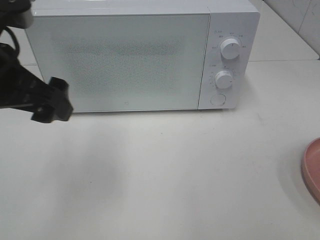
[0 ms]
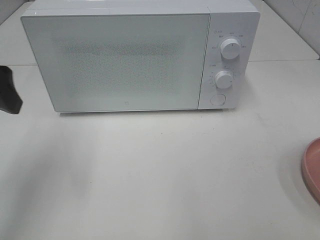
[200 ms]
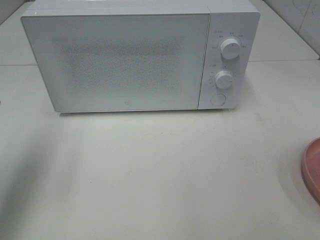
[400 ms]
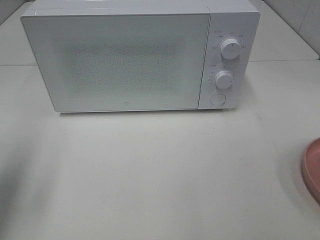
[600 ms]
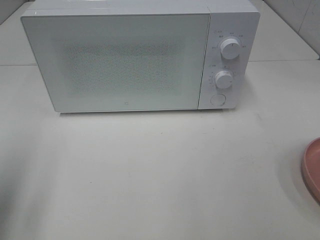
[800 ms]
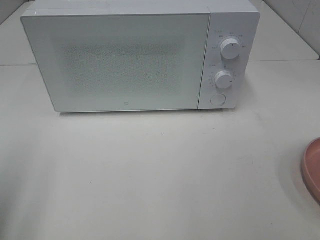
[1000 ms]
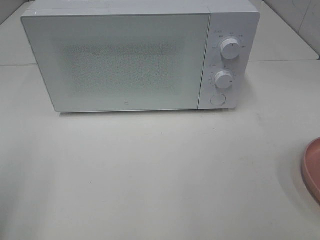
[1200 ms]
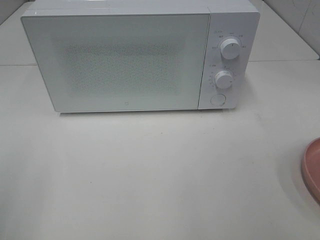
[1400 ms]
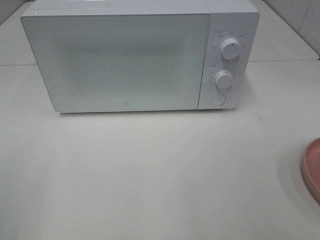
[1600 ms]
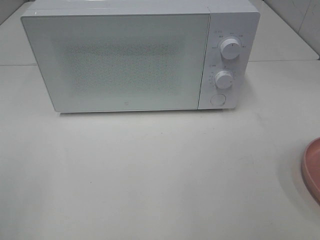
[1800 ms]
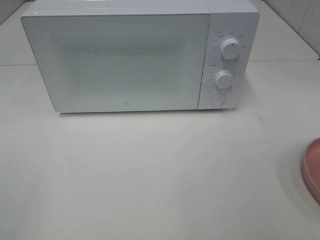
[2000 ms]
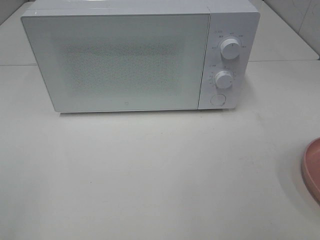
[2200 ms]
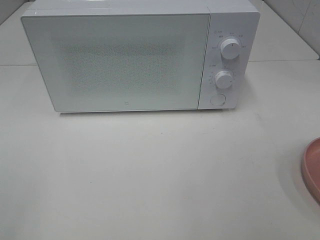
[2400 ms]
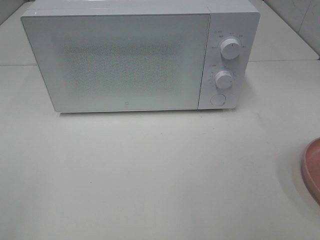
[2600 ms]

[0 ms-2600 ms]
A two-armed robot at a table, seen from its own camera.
Task of the whole recording: Heat the burger.
0 ms to 1200 ms: The left gripper shifts roughly 20 cm backward and to the left.

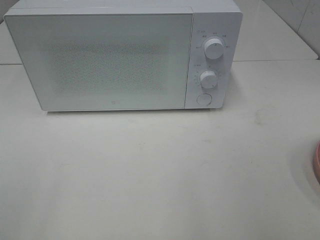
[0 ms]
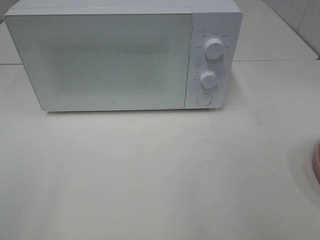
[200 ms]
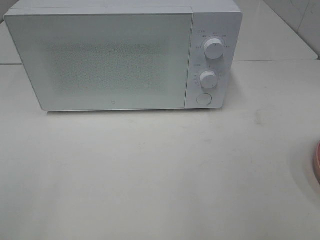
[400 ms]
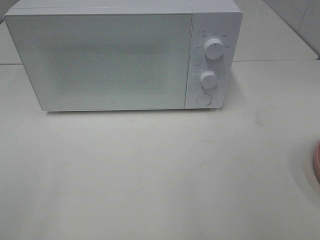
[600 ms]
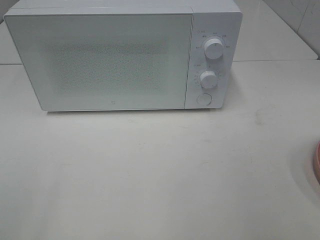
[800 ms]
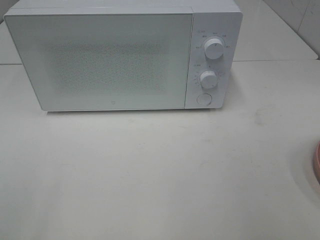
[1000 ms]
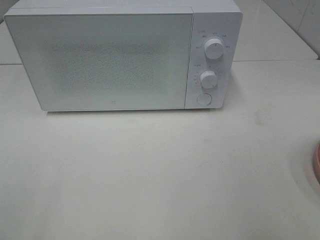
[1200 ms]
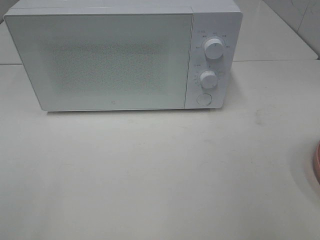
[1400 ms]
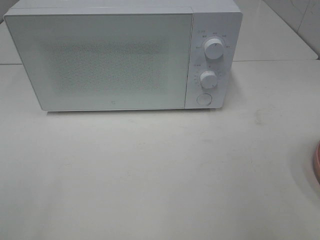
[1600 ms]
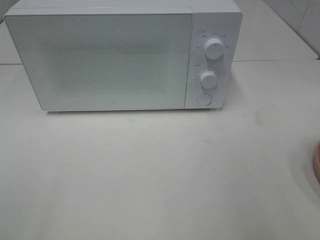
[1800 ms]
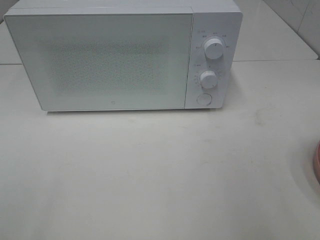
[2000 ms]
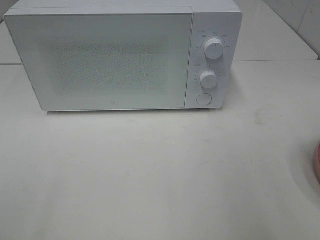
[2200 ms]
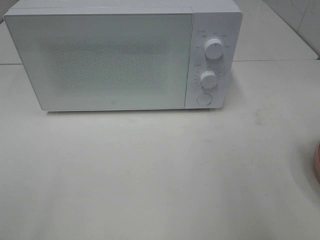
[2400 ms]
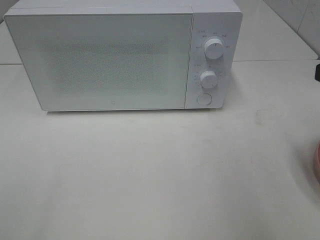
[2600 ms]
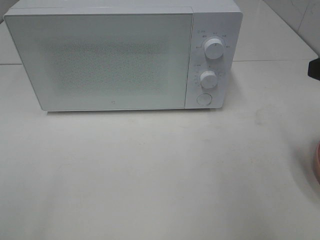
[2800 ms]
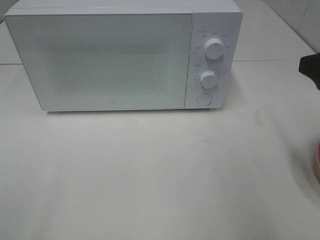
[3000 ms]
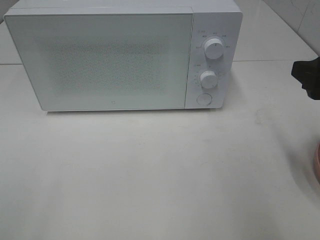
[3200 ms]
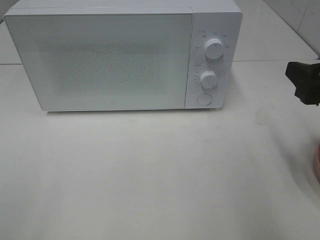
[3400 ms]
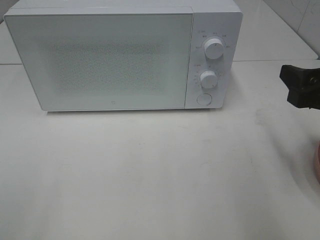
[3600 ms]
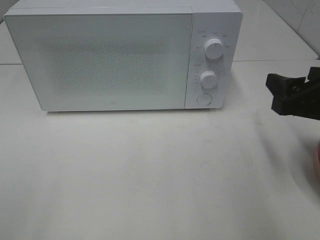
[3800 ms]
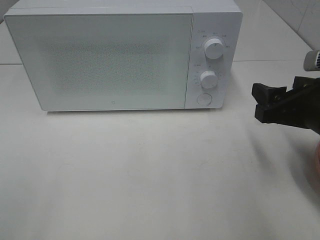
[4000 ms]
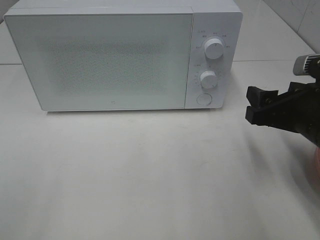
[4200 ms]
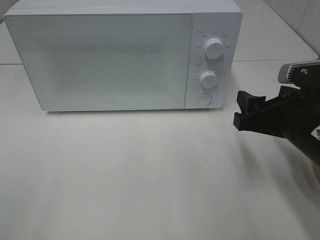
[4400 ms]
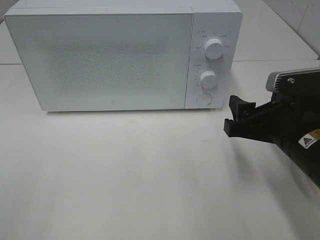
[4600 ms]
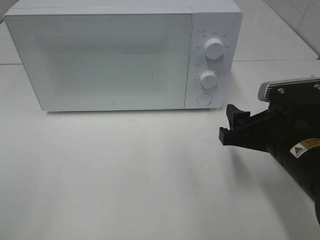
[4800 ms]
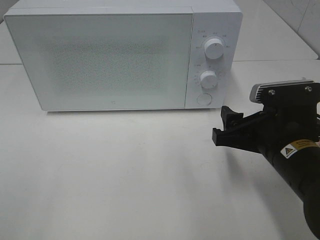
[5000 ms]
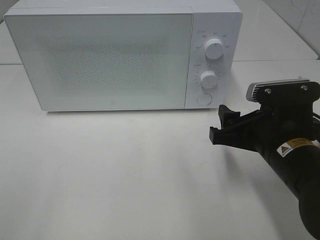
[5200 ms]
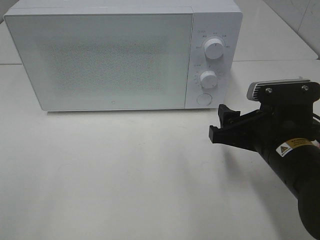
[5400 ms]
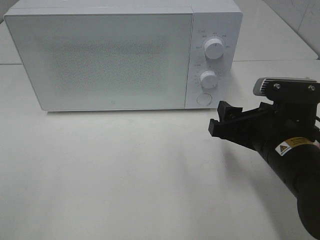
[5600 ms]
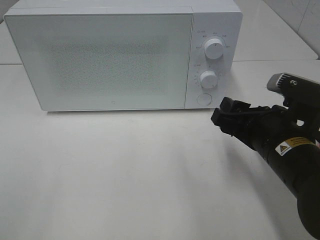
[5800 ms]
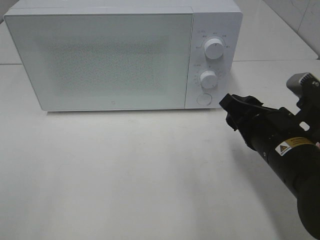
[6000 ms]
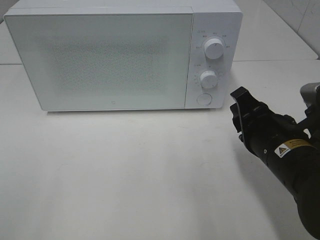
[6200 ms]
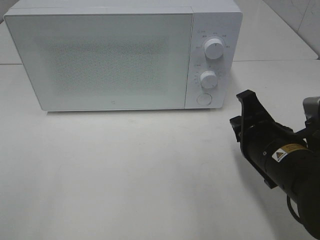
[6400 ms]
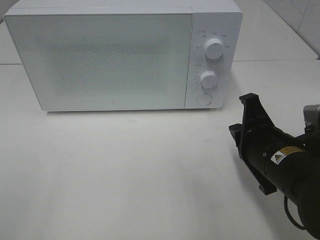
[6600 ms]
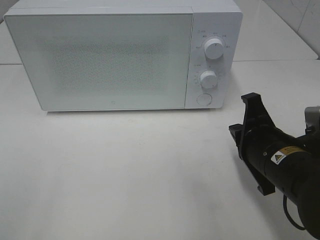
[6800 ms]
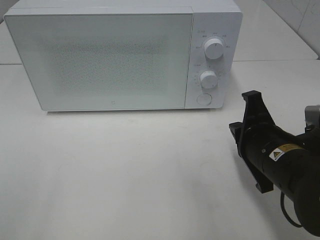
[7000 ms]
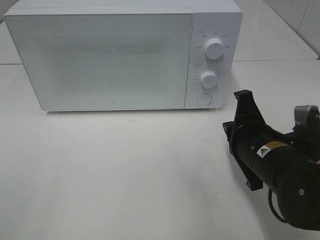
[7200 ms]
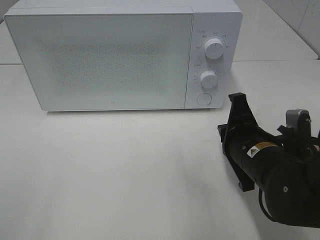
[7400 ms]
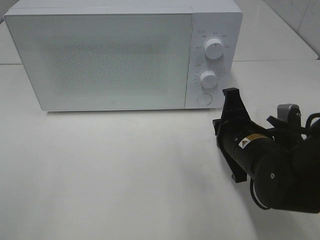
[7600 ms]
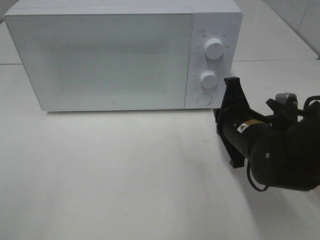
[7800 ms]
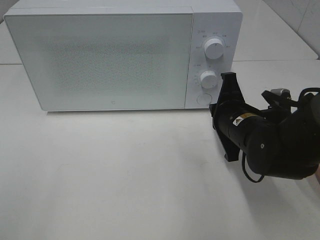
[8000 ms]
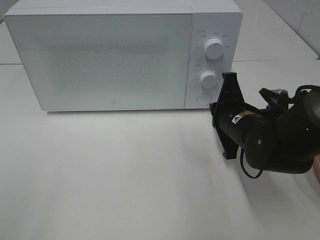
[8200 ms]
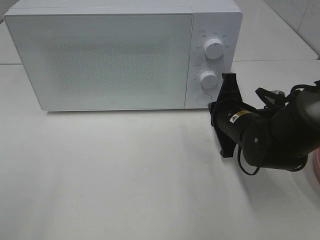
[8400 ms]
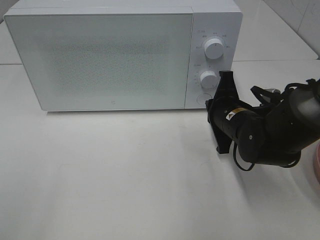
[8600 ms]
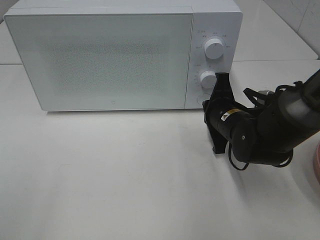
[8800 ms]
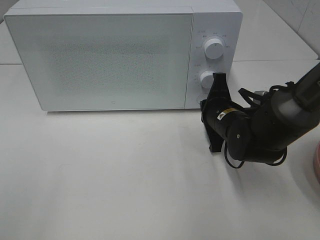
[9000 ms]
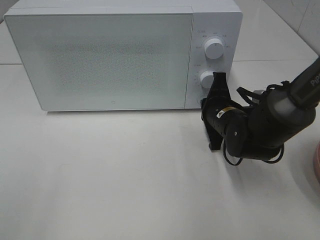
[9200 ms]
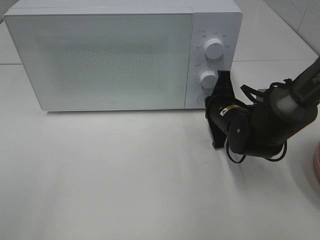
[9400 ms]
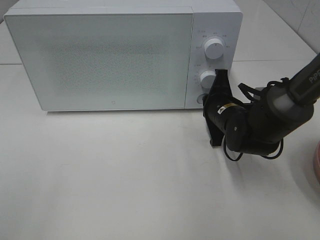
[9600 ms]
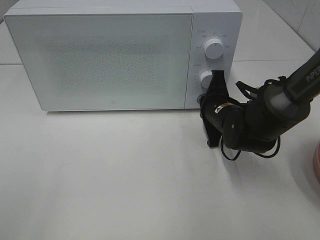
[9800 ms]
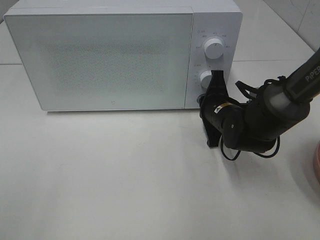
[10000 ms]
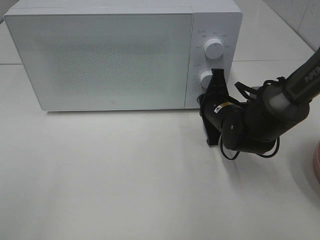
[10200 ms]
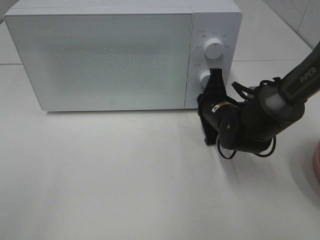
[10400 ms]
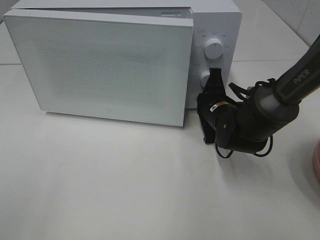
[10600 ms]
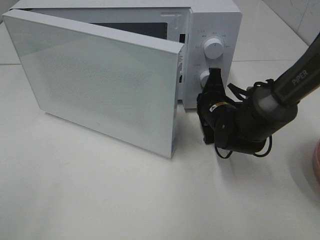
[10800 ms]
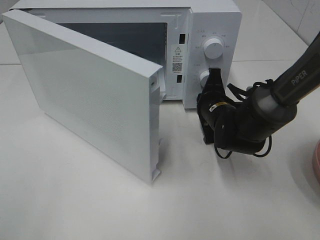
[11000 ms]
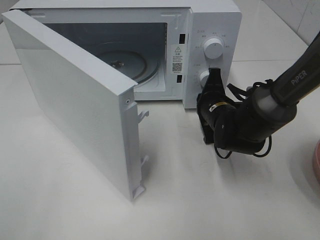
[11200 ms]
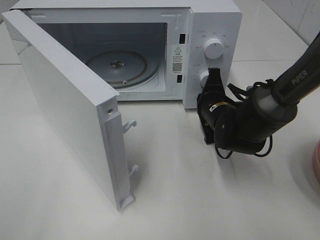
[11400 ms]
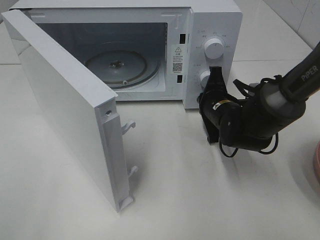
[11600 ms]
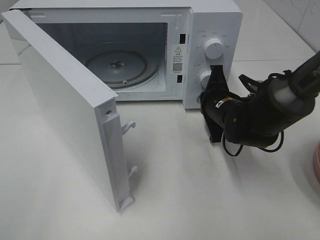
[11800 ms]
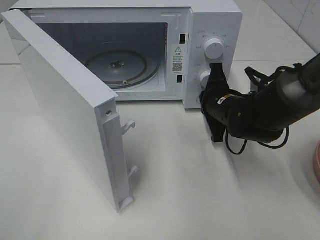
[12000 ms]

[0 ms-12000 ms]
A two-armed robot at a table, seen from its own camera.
Task of the whole recording: Heat the burger.
1600 ms to 3000 ms: The right gripper goes approximately 10 cm forward.
3000 ms to 4400 ms: The right gripper moves downward and to the left, roughly 10 cm.
6000 ms to 7600 ms: The right gripper moves approximately 5 cm, and closes its fingers.
7600 ms to 9000 ms: The right gripper shifts approximately 10 cm forward.
9000 ms to 10400 ms: The grippers make only small movements.

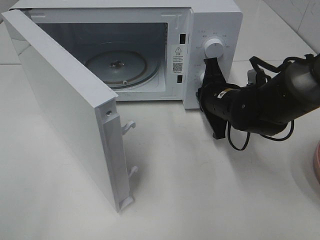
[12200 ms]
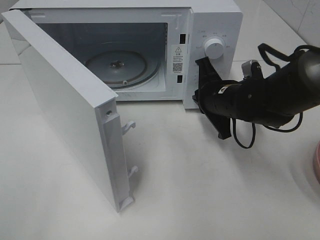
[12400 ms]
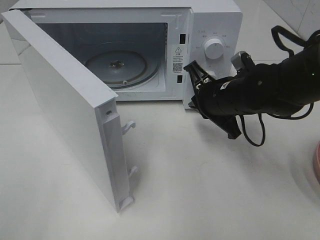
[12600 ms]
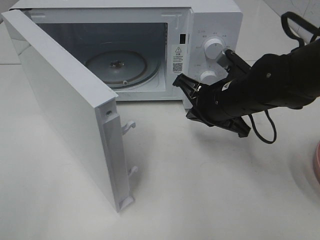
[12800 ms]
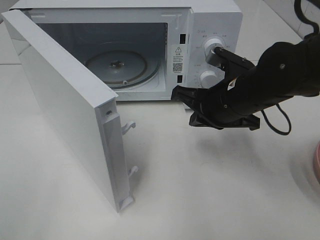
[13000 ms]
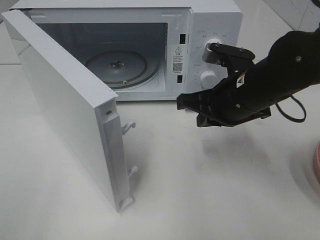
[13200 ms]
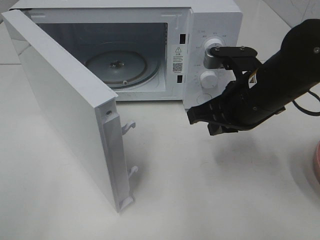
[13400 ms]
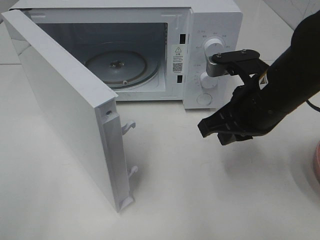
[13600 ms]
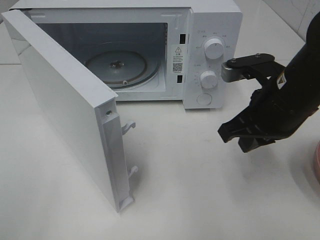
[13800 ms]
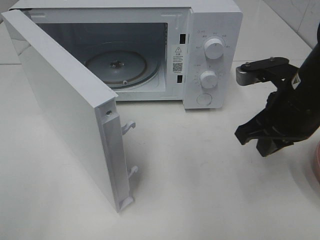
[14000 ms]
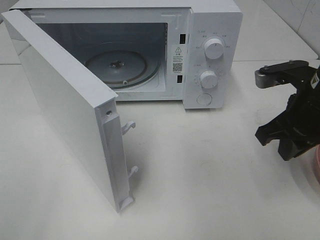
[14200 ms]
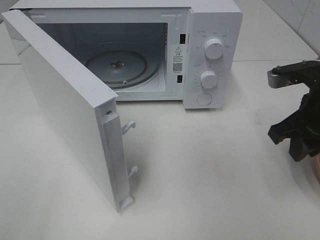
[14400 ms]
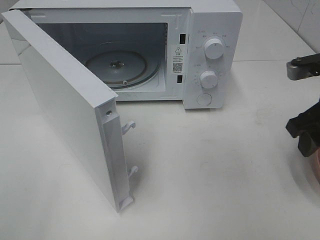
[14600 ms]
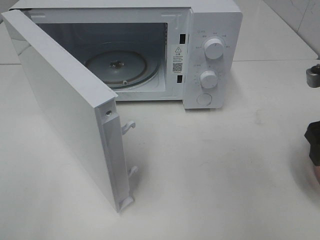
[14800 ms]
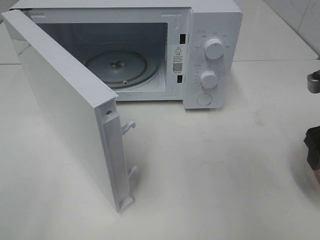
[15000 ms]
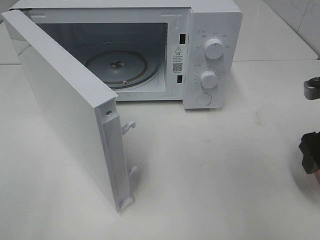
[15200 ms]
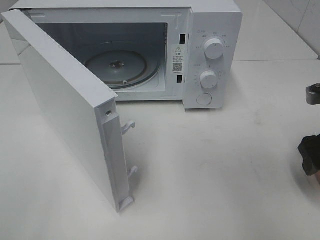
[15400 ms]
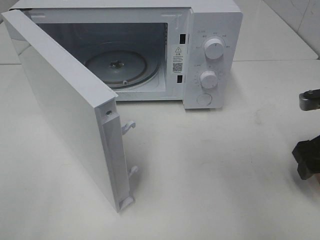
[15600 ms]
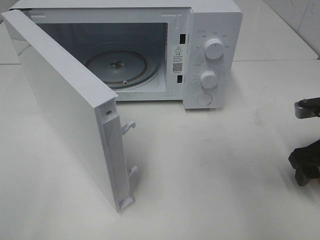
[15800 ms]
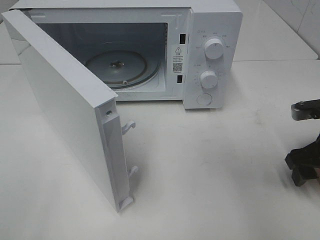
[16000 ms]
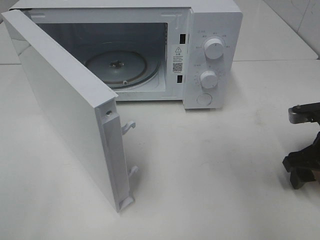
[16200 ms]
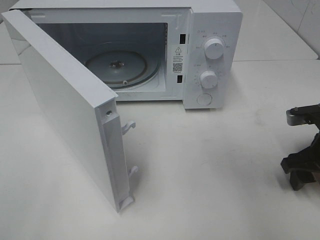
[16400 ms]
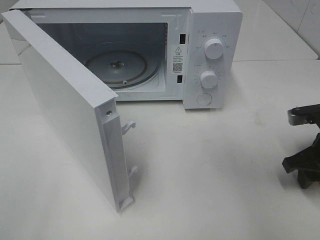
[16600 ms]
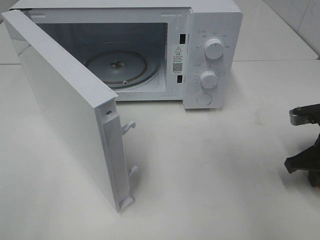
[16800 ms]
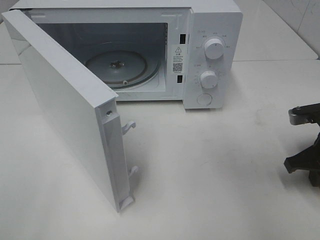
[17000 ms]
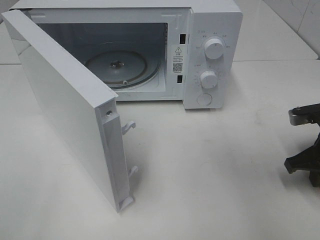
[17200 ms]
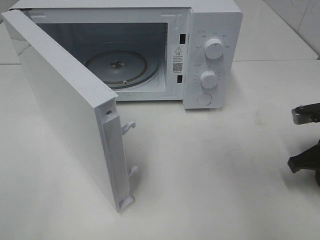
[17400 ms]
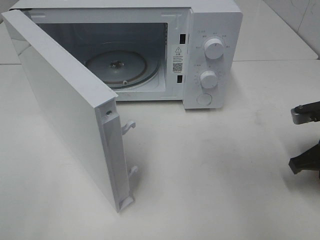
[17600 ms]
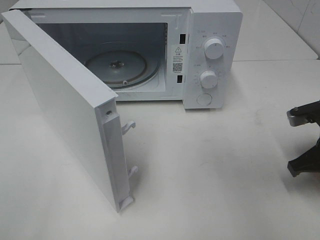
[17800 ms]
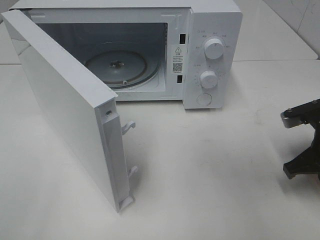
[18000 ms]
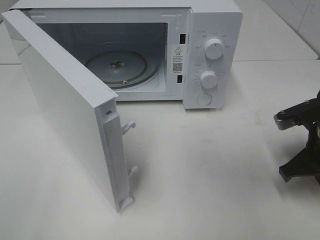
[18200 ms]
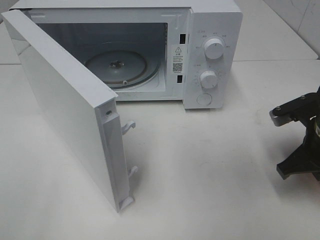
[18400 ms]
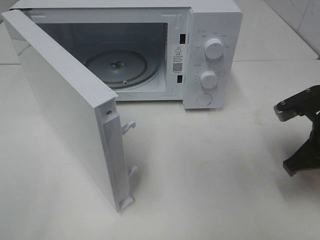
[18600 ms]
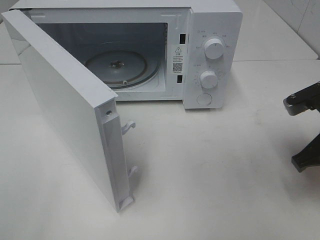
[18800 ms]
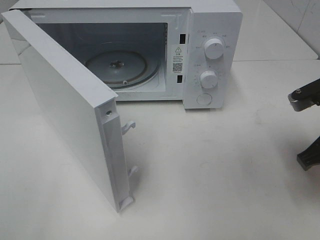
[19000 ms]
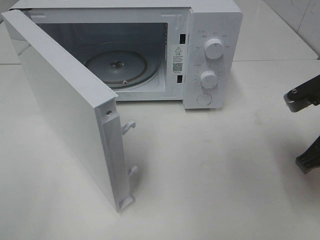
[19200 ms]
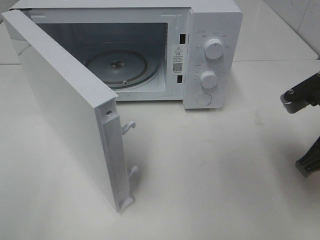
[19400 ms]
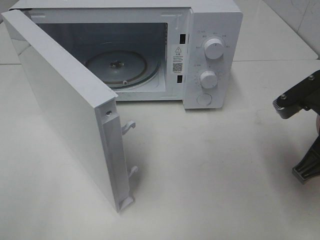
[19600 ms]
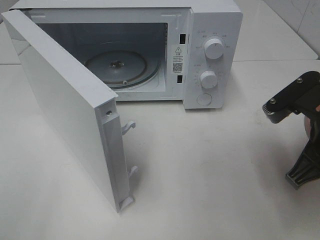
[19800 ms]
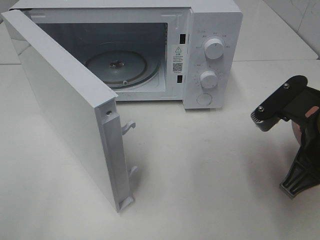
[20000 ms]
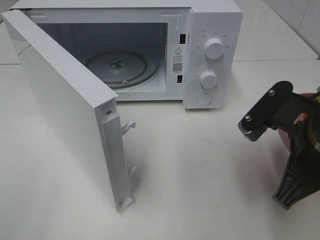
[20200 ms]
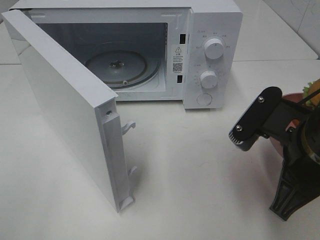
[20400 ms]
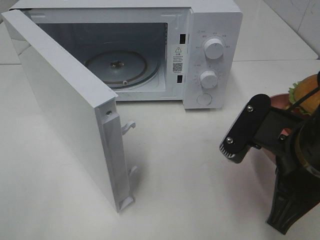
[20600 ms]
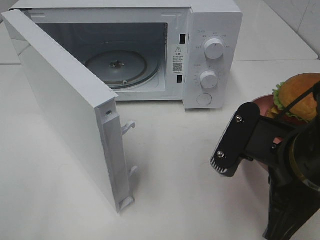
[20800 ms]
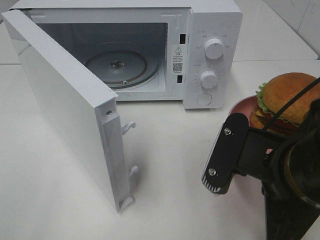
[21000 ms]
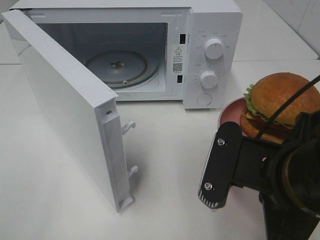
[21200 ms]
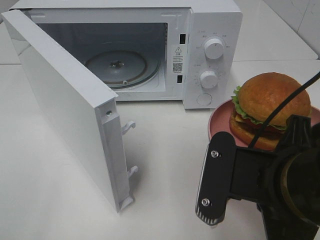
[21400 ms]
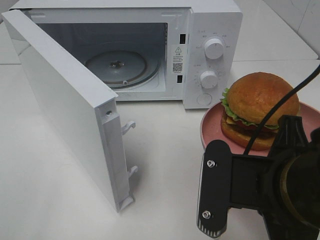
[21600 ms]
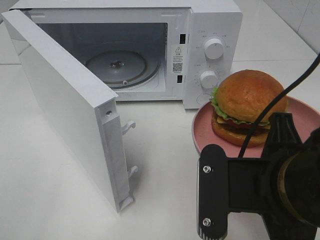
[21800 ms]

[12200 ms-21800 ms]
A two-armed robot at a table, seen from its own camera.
Task of the whole recording: Heat the burger.
Step, 12600 ms to 18200 ms: Right hand: grab the plate with the hamburger.
12200 ms to 13800 ms: The right gripper shifts some 15 cm backward and upward.
13800 ms to 15400 ms: The right gripper is displaced to the right by about 10 cm, and opens.
15400 ms to 17000 ms: The right gripper is displaced downward by roughly 5 cm, and closes.
17000 ms to 18600 ms: The right gripper moves some 5 cm.
18600 ms to 20200 ms: The right gripper heads to the left and backward, covering about 10 cm.
20200 ms to 21800 ms: The right gripper heads backward and to the left, covering about 10 cm.
